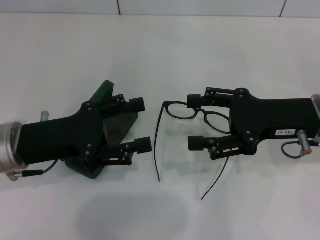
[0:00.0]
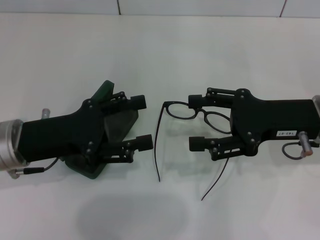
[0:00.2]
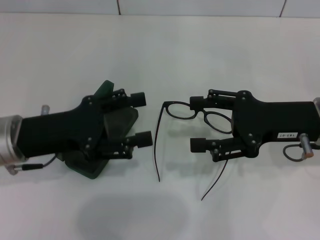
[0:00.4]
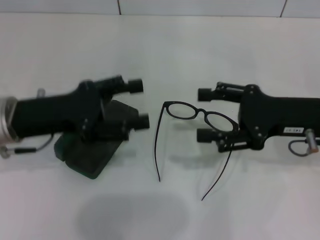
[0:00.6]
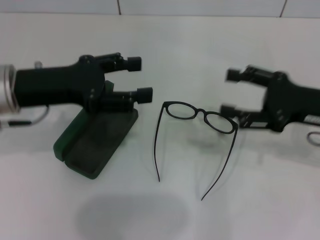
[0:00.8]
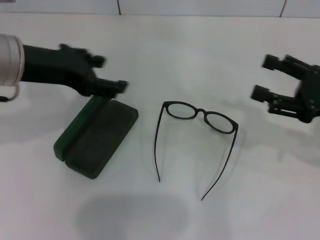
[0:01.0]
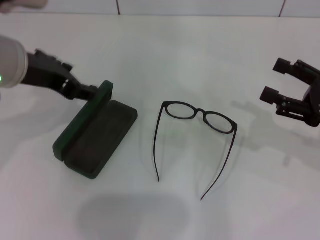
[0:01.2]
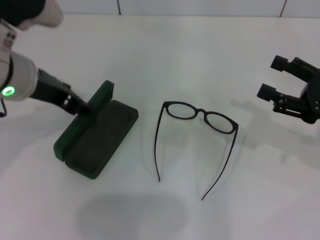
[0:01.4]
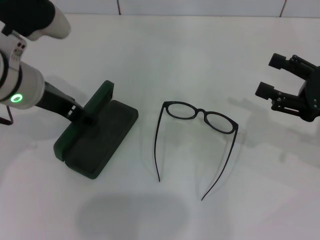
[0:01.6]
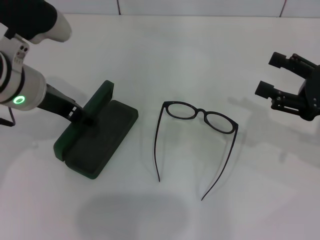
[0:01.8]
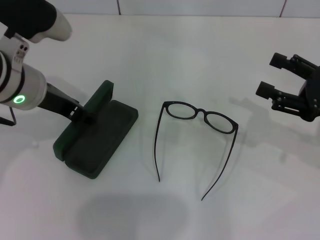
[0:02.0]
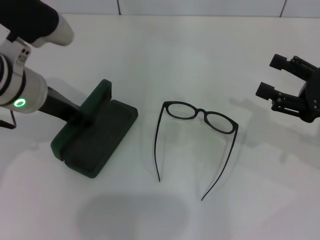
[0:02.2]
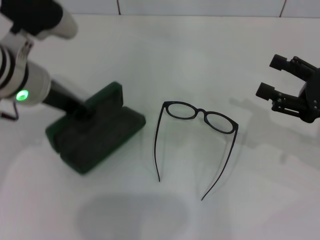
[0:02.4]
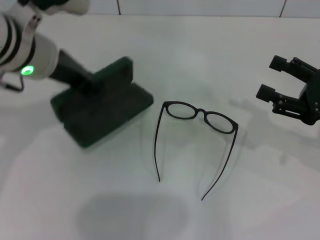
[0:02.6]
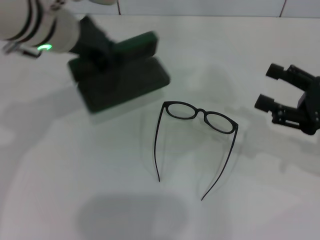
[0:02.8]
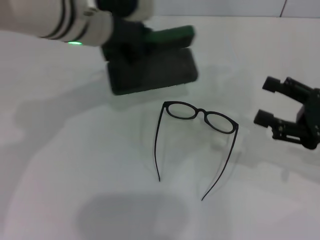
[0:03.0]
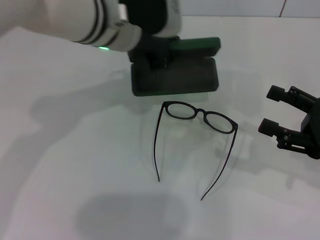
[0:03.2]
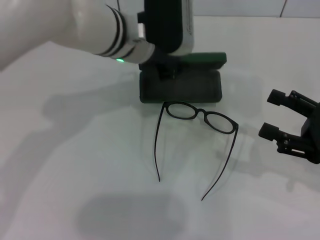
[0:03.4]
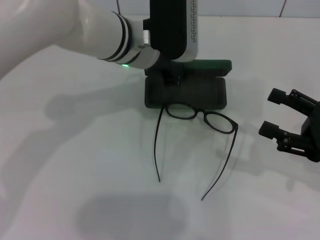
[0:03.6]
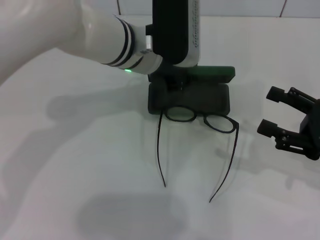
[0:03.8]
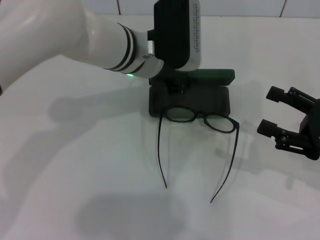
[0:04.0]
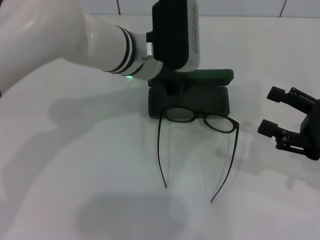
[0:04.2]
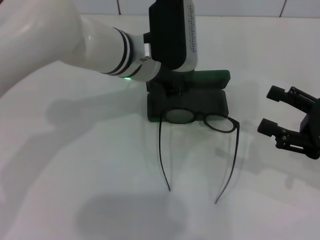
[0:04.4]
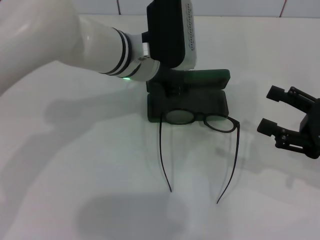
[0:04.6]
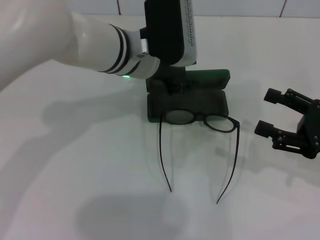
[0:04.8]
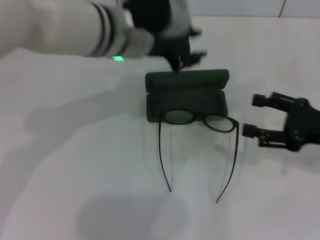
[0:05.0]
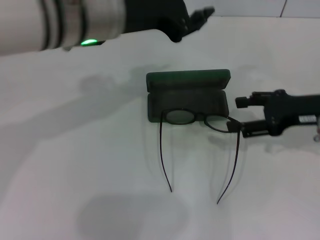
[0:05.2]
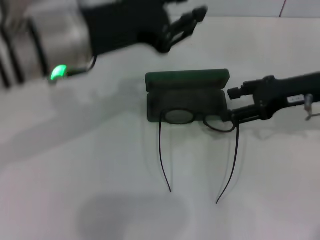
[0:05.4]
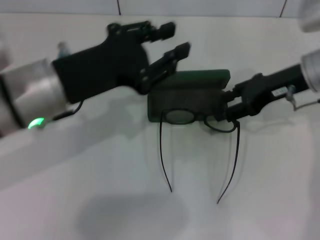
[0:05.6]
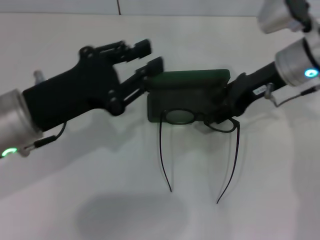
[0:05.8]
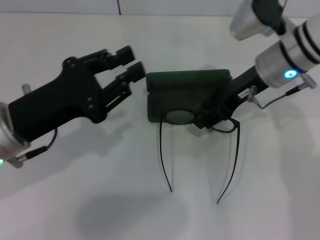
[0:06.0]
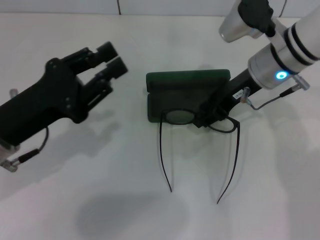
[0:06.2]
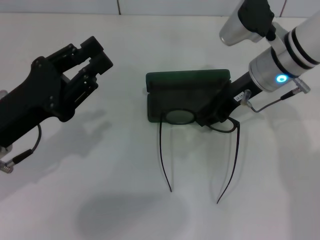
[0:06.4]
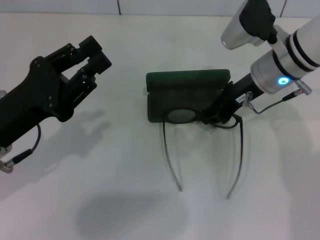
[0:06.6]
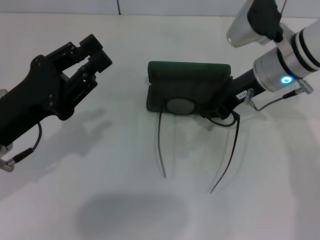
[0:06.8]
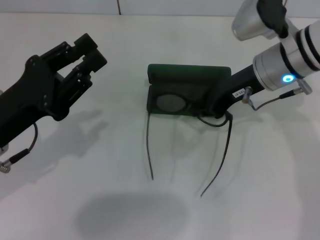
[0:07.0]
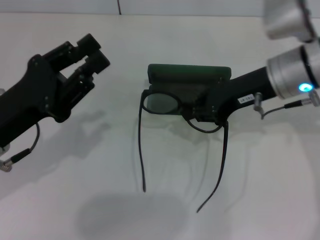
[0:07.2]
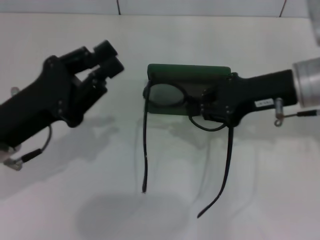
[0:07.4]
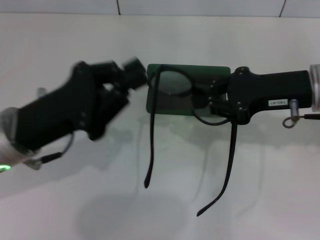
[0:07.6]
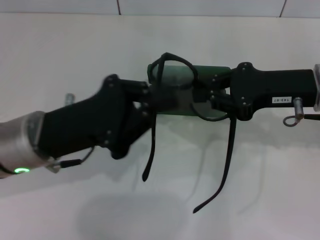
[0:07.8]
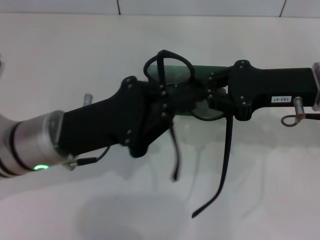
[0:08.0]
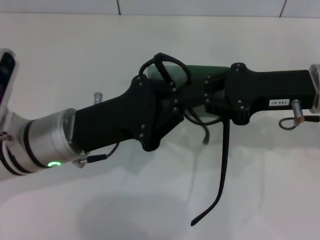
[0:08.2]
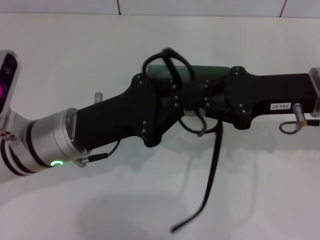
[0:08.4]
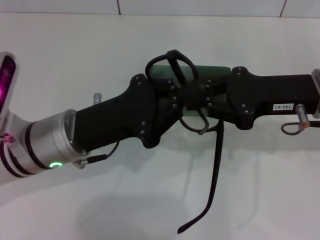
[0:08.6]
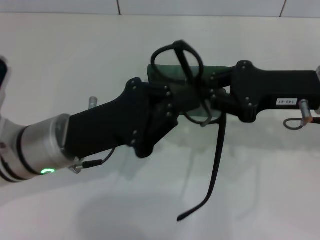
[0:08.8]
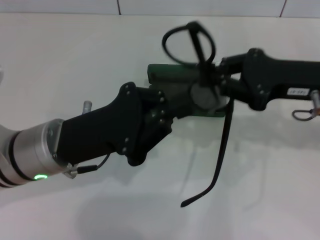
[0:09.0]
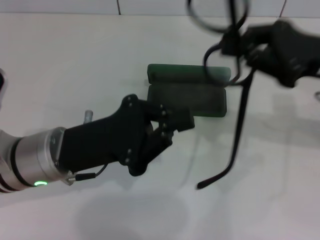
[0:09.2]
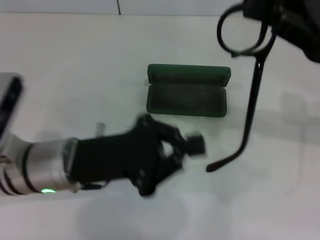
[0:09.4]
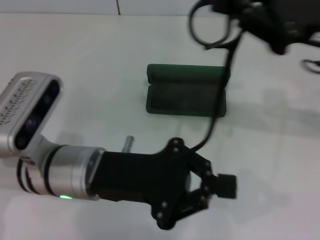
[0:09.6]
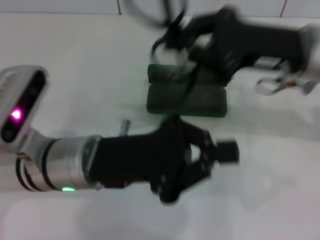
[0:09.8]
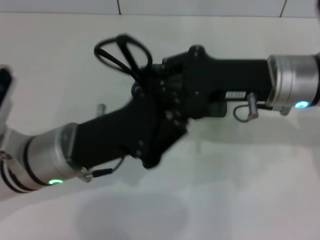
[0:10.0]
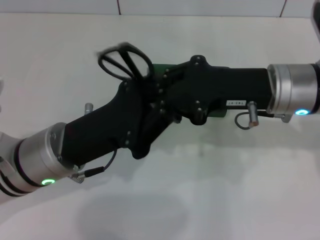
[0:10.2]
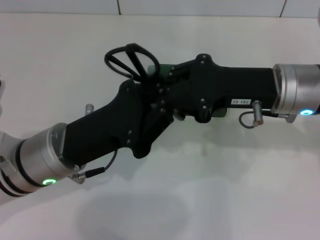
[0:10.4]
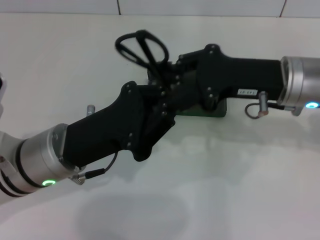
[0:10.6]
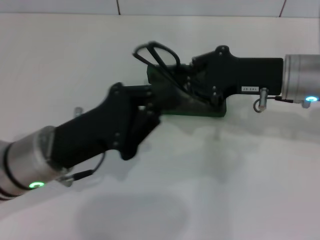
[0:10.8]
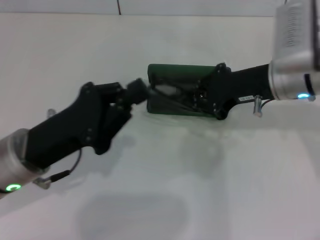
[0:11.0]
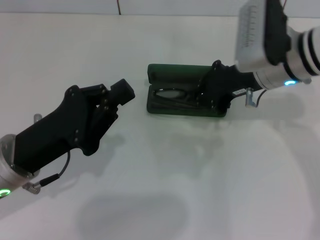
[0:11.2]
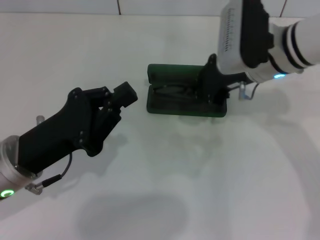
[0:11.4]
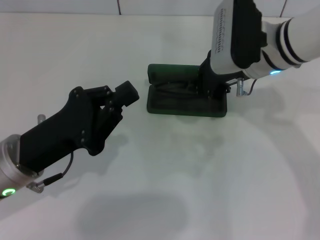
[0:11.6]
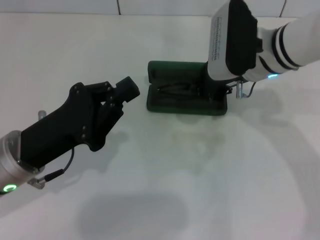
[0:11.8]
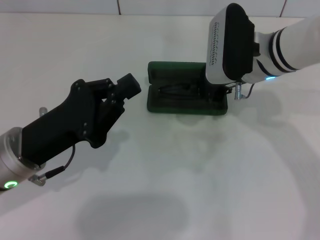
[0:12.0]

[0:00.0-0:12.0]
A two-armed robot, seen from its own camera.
Step, 0:00.0 to 0:02.0: Grab the glasses case with your left hand.
Step, 0:02.2 to 0:04.8: Place the glasses case in the center of the table with your left hand.
Step, 0:05.0 to 0:06.4: Grab the eyeglass frame with your right hand.
Step, 0:06.6 to 0:10.4: Fold the frame with your left hand.
0:00.0 to 0:01.6: The right gripper shifts approximately 10 cm to the right. Meanwhile the left gripper heads upward and forward, covering roughly 10 cm.
0:01.6 to 0:03.0: The left gripper goes approximately 10 cm to the right, and closes up.
0:03.0 to 0:04.4: The left gripper shifts approximately 10 cm downward and to the right.
0:04.4 to 0:06.0: The left gripper heads to the left and backward, covering some 20 cm; the right gripper shifts approximately 20 cm to the left, forward and upward, and closes its fingers.
0:06.0 to 0:07.6: The right gripper goes roughly 10 cm backward and to the right, and closes its fingers.
0:09.0 to 0:10.4: The right gripper goes some 5 cm to the left.
0:10.4 to 0:12.0: The left gripper heads to the left, covering some 5 cm, while the right gripper shifts approximately 10 cm forward.

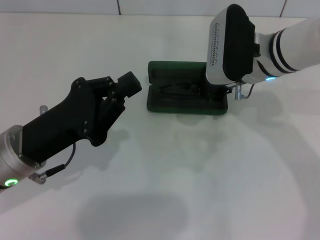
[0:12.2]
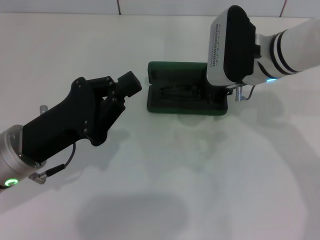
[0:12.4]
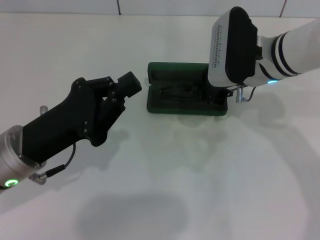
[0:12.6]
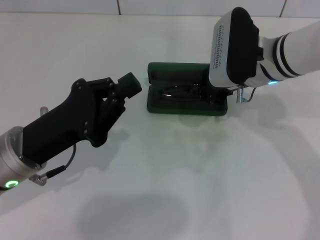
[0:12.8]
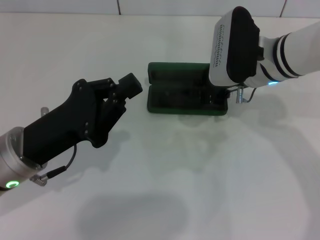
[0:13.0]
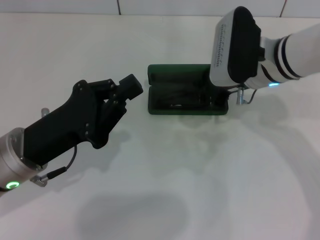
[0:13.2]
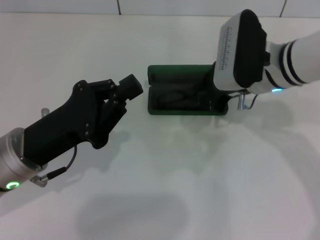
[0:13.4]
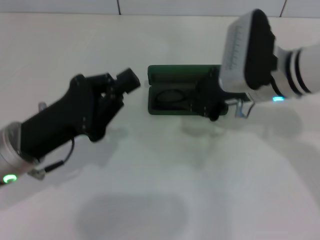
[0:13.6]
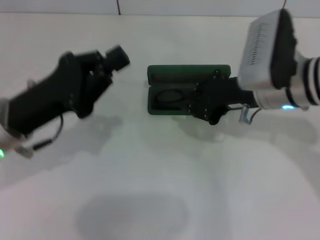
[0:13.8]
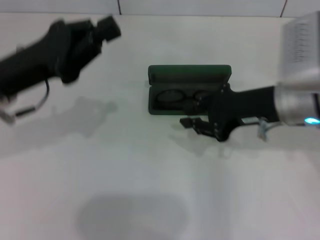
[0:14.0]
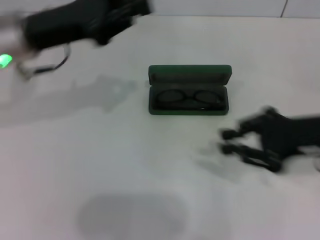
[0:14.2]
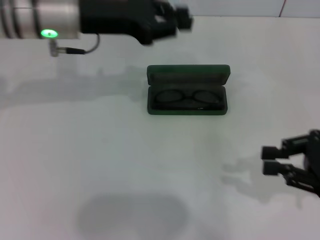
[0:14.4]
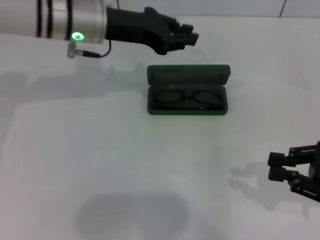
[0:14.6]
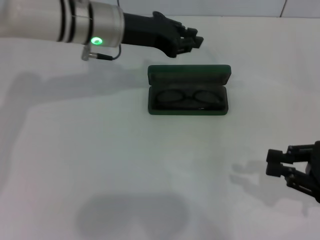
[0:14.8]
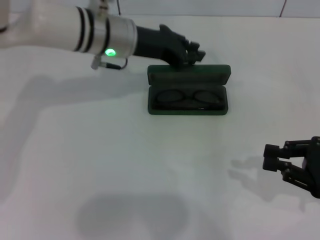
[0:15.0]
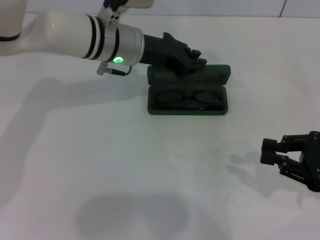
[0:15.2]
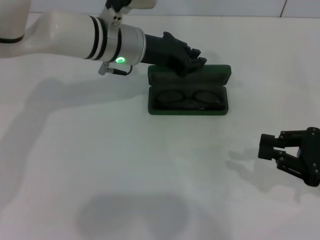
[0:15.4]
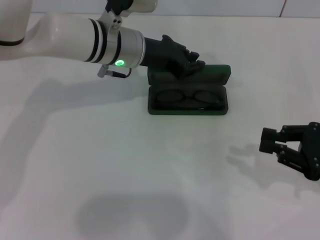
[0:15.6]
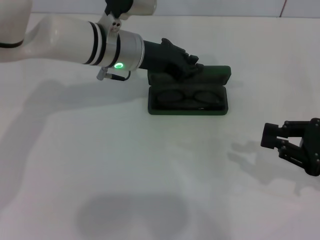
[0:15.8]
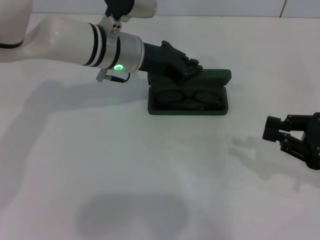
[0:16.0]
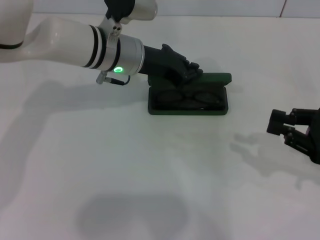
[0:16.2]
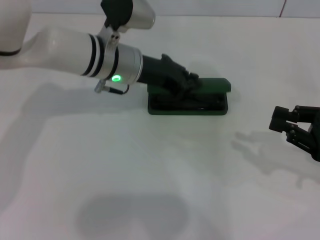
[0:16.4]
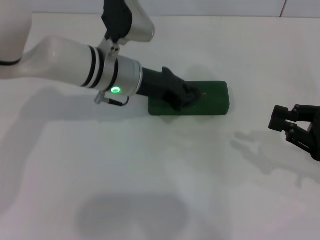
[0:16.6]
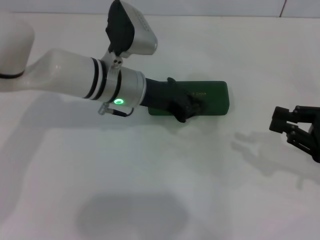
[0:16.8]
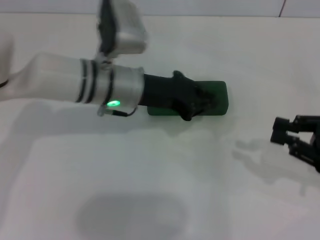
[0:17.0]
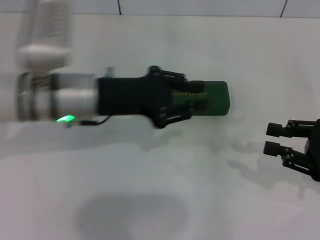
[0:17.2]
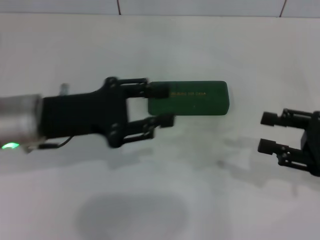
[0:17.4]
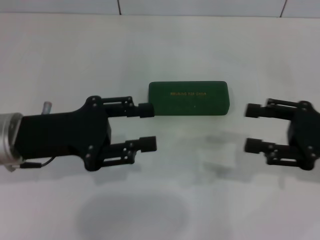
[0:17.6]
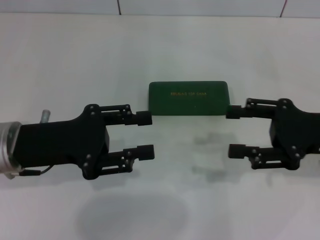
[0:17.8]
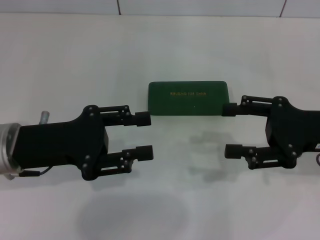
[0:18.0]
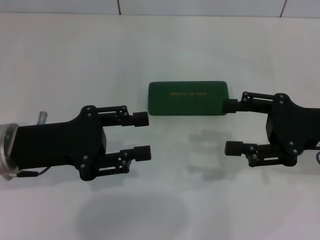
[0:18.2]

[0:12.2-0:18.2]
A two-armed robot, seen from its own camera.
Step, 0:13.8 to 0:16.8: Close the glasses case with your left hand.
0:12.2 to 0:13.8: The right gripper goes some 5 cm backward.
0:13.8 to 0:15.2: The left gripper heads forward and to the right, covering about 20 cm, while the right gripper travels to the right and backward by approximately 20 cm.
0:15.2 to 0:16.6: There are only small adjustments of the grippers.
0:16.6 to 0:18.2: The left gripper shifts approximately 20 cm backward and to the left, and opens. The right gripper goes some 5 cm to the left, and opens its fingers.

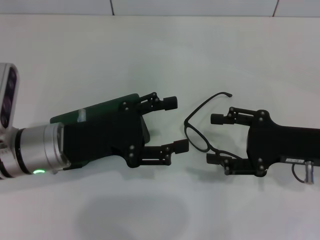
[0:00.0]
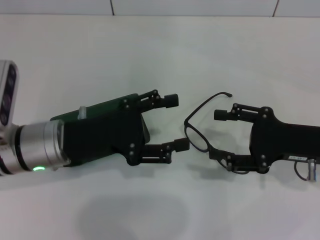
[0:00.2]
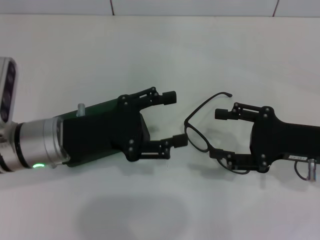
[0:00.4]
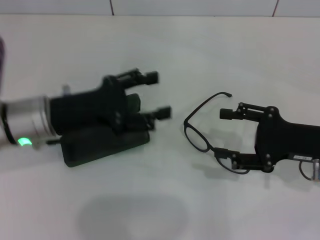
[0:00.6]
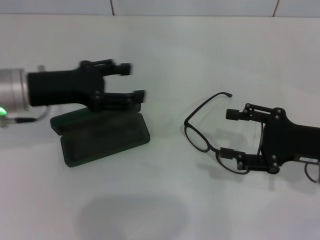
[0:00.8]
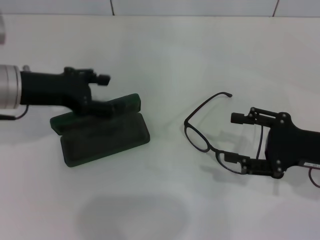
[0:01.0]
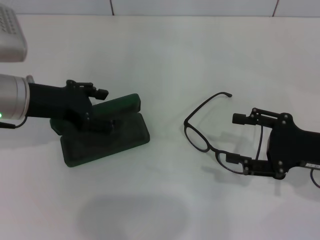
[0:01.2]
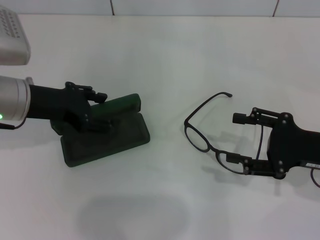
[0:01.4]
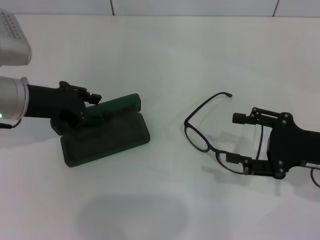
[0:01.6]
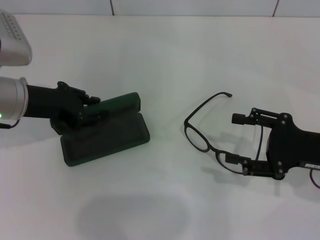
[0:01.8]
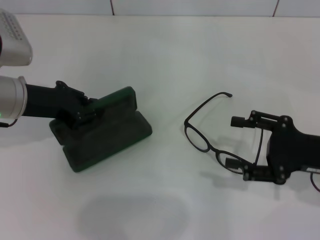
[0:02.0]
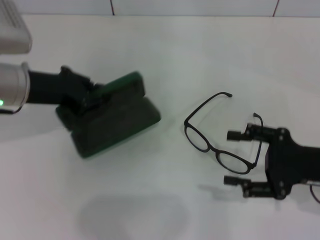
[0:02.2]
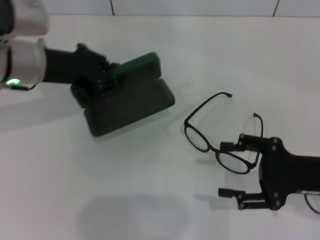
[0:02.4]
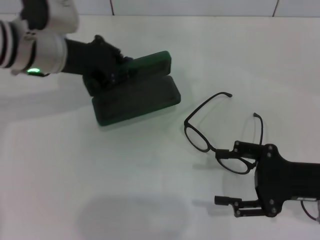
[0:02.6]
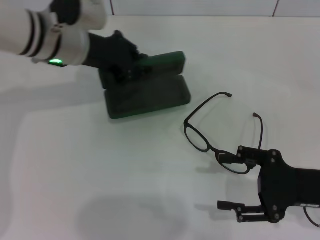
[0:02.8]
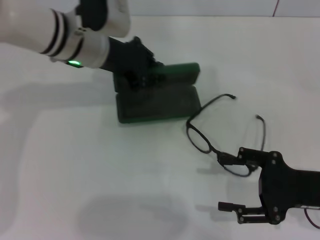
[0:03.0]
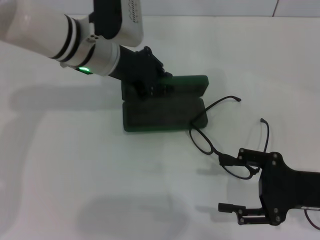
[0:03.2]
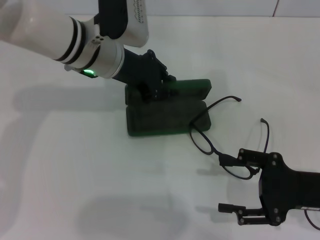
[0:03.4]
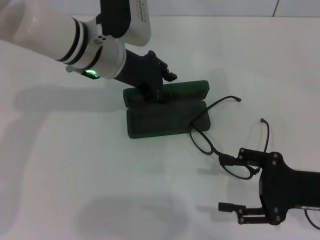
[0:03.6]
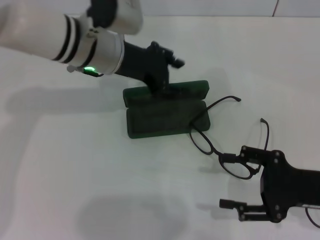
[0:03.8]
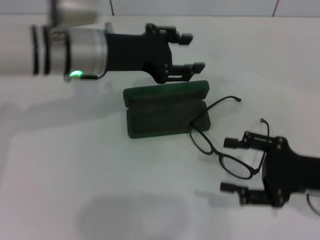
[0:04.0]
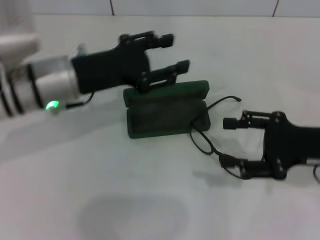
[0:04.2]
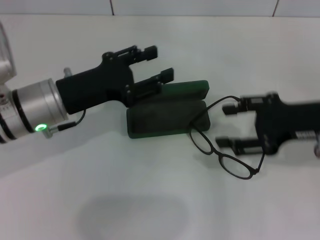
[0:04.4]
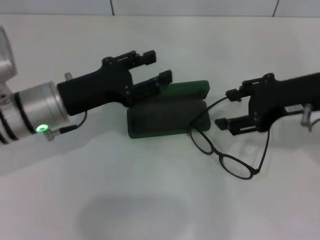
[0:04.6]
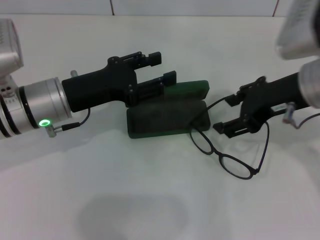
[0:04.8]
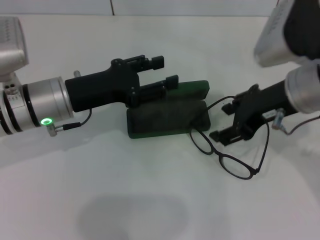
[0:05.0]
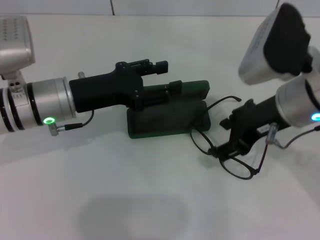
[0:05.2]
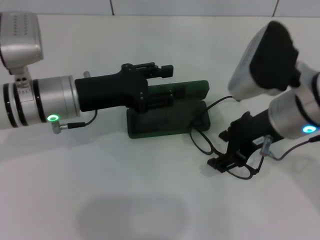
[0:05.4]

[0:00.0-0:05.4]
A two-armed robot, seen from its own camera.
Step, 0:00.0 to 0:01.8: Grab the glasses case with your left hand.
Step, 0:02.0 to 0:03.4: Place the glasses case in the center of the table with your left hand.
0:00.0 to 0:01.4: The left gripper shifts about 10 cm forward, upward and to the left.
0:01.4 to 0:02.8: The left gripper goes approximately 10 cm forward and to the right, and closes.
0:02.8 to 0:04.0: The left gripper opens its fingers.
0:04.0 to 0:05.4: The right gripper heads to the left, upward and forward, covering roughly 15 cm, while the left gripper goes some 5 cm downward.
